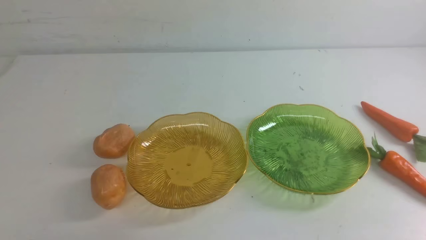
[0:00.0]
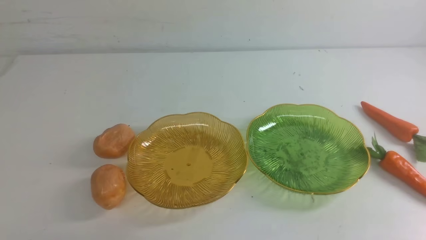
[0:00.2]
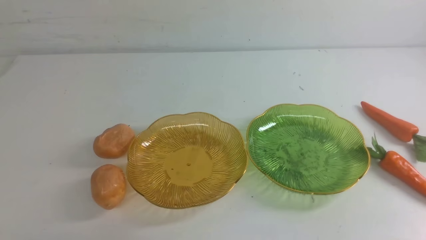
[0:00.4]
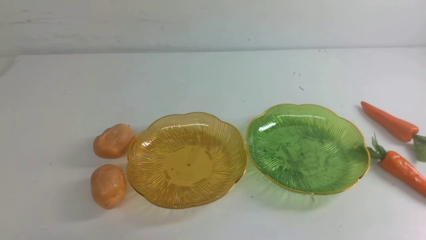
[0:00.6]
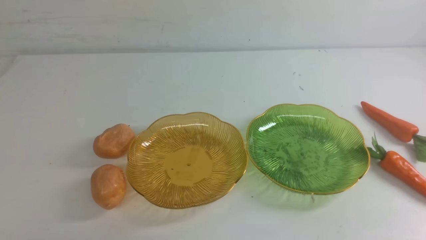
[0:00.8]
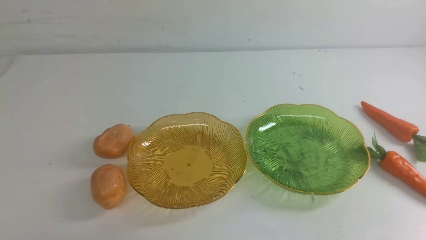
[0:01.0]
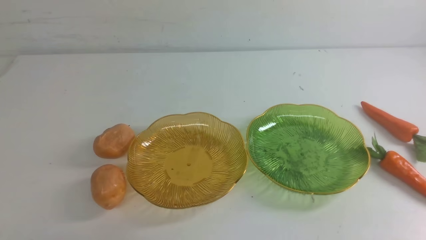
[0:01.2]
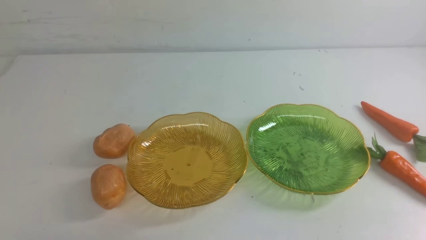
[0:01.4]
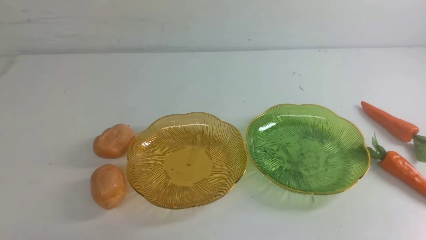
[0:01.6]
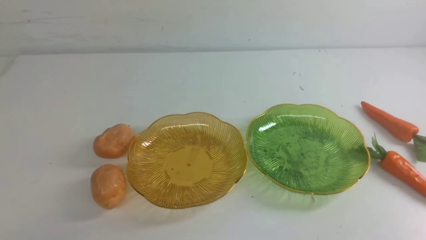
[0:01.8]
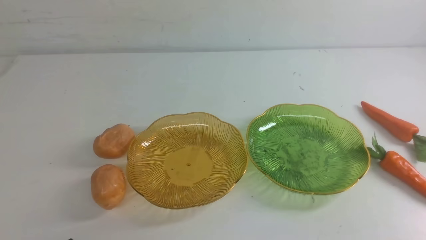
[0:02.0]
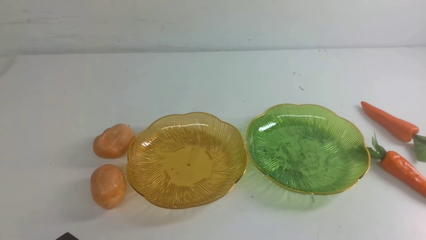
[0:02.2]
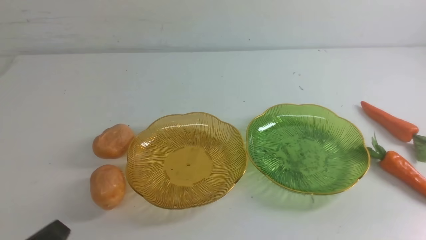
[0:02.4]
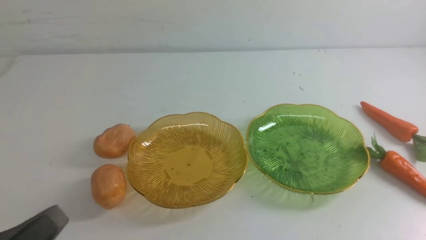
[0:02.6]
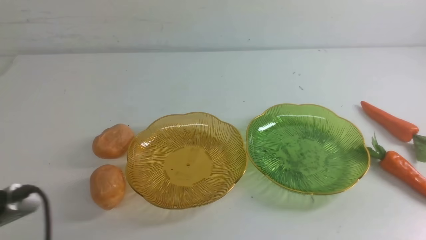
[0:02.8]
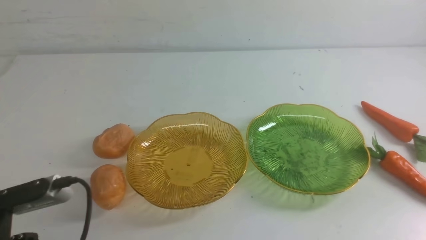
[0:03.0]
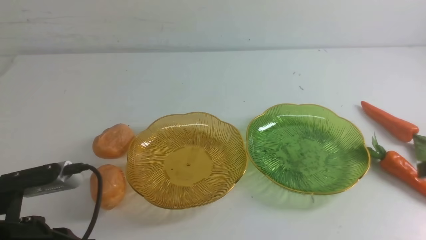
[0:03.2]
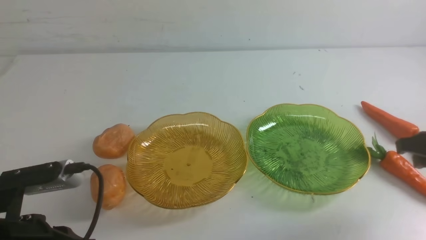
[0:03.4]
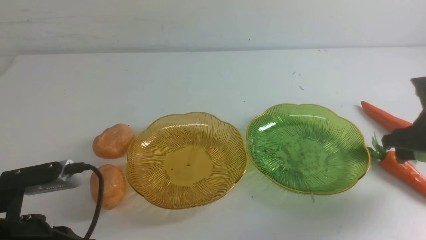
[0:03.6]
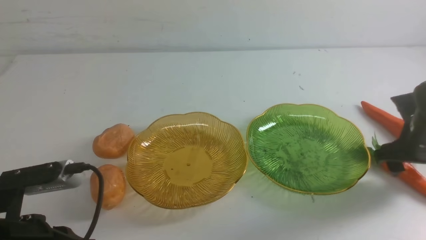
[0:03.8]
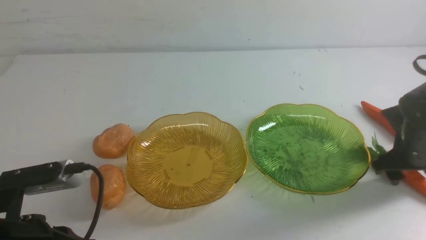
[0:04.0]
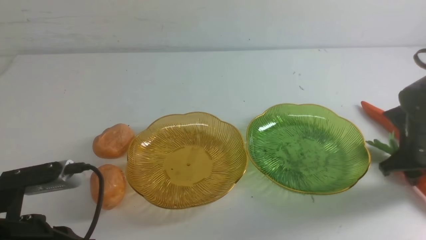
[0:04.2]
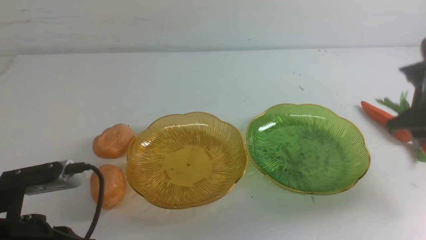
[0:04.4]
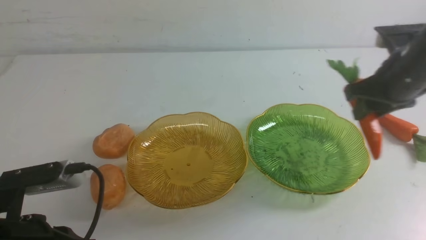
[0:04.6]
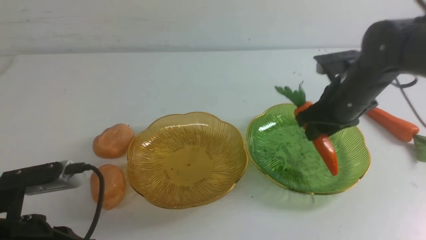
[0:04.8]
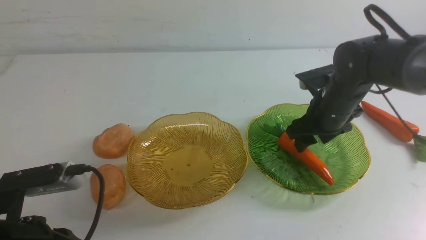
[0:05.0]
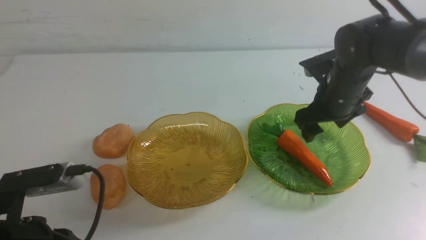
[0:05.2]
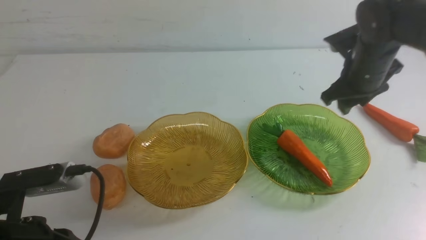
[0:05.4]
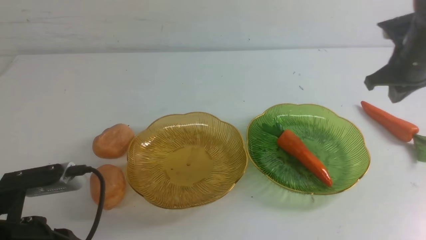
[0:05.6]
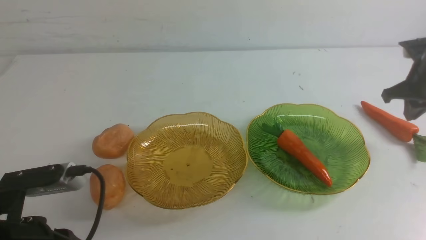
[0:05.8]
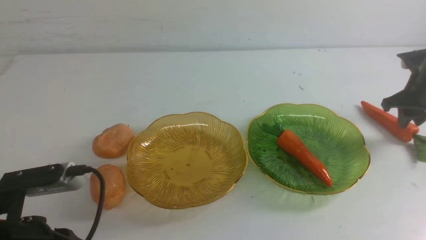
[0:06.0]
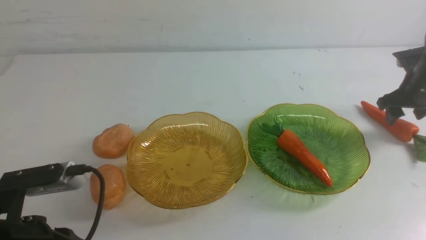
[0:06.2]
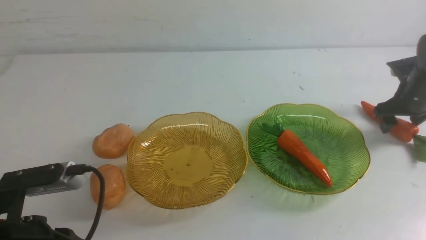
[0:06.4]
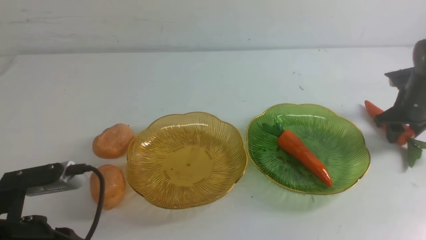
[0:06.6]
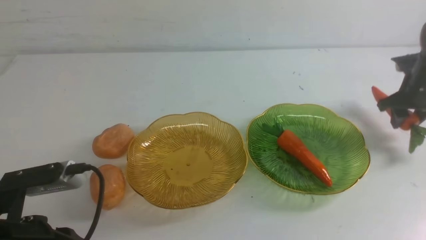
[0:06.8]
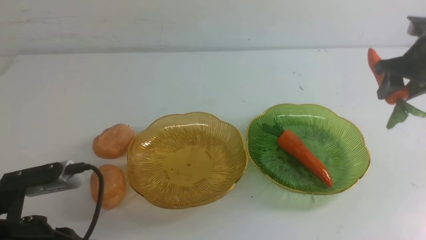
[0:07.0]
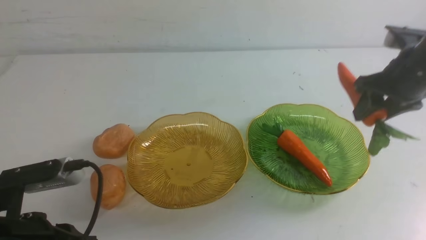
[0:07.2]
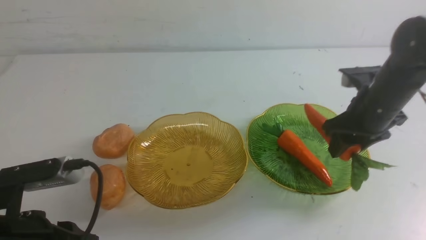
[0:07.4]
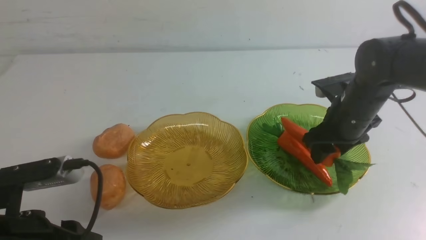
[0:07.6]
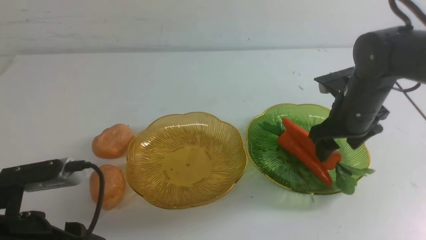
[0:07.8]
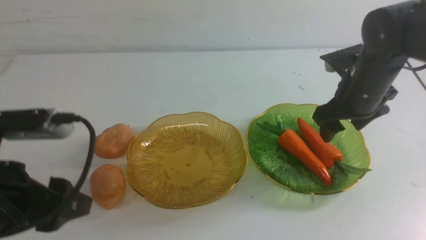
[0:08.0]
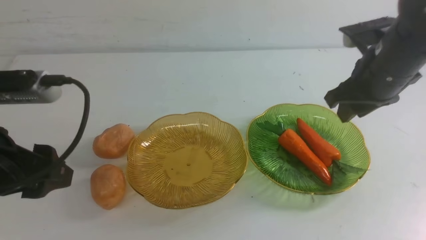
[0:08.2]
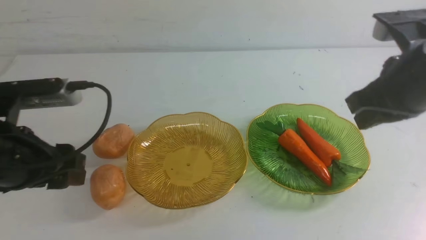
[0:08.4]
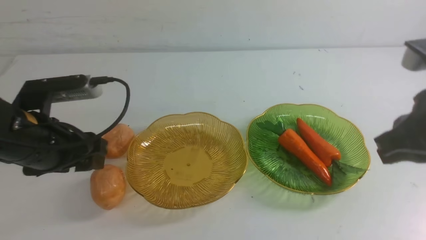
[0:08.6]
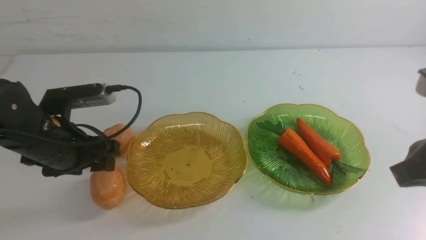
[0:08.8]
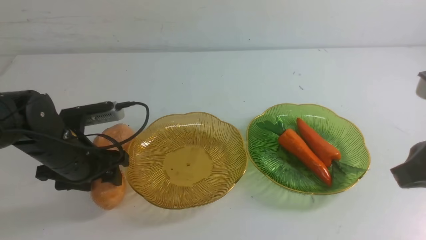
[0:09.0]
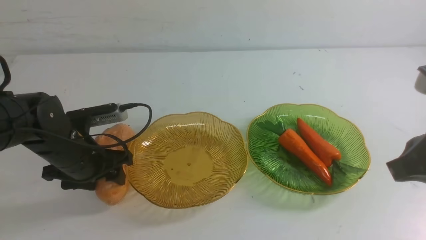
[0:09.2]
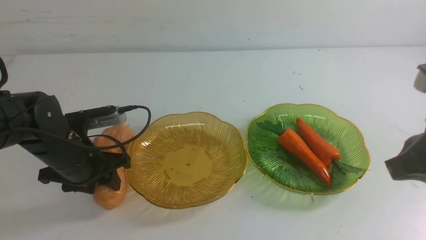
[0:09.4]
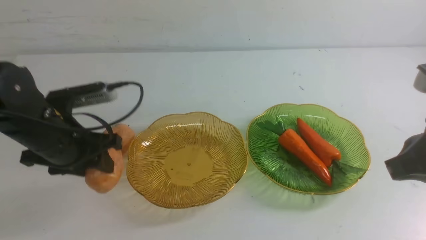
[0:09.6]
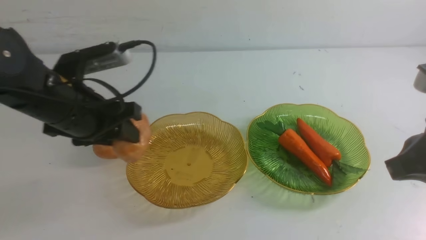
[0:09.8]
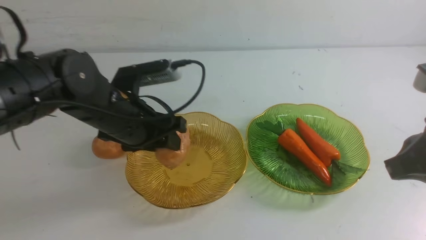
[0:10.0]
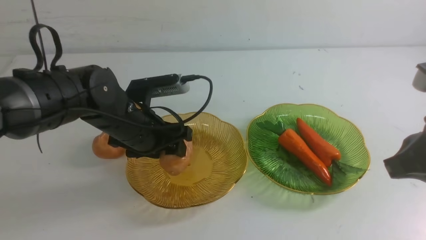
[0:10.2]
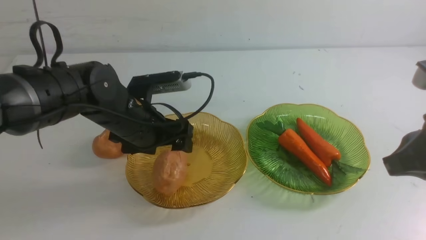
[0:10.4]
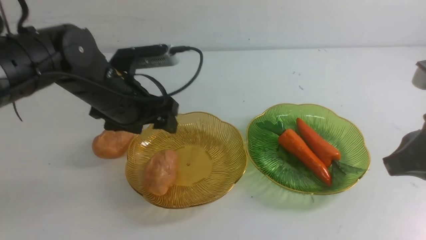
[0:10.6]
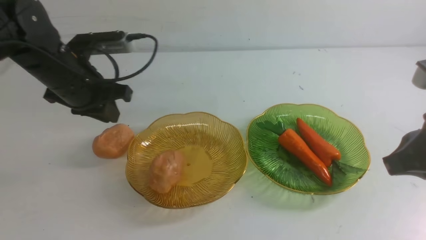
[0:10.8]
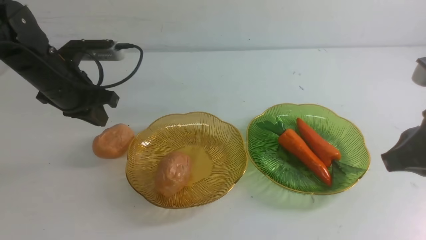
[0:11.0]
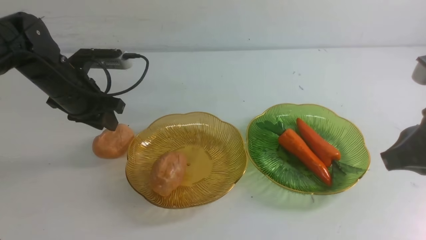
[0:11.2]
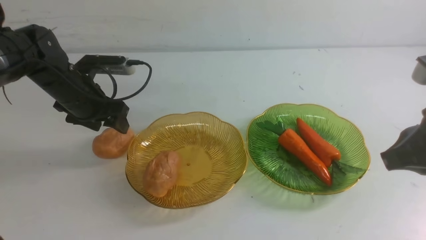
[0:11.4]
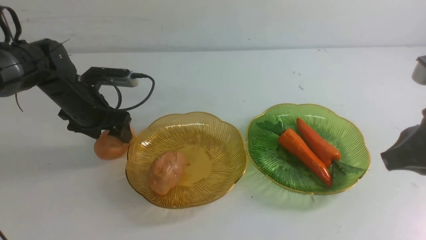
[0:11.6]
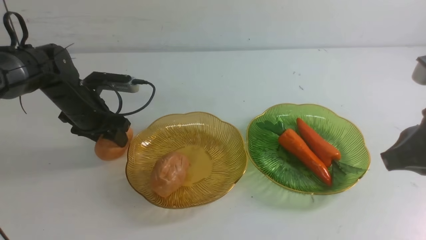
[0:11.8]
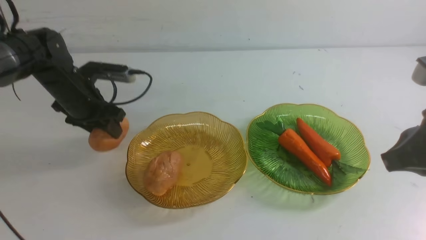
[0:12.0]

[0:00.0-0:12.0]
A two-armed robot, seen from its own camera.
Step, 0.0 to 7.8 s: use the right arm to grab a carrot and put it into the right plate.
Step, 8.0 to 10.2 s: Grab a potato with your left arm and put it on the left plate.
1.6 to 3.0 s: The left gripper shifts some 10 cm upward and forward.
3.0 to 4.4 s: The right gripper moves forward, about 20 cm, and opens its fingers.
4.4 to 6.0 s: The right gripper heads forward and to the right, covering some 10 cm, and closes, then reopens.
6.0 to 7.6 s: The right gripper heads to the left and backward, covering about 20 cm. The left gripper opens its fingers.
7.6 to 9.0 s: The left gripper heads forward and downward, covering some 15 cm, while the right gripper goes about 20 cm backward and upward, and closes.
9.0 to 10.4 s: The left gripper travels upward and forward by roughly 10 cm.
10.4 to 12.0 s: The left gripper travels forward by about 5 cm, and moves roughly 10 cm downward and comes back.

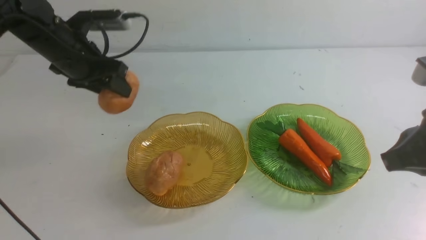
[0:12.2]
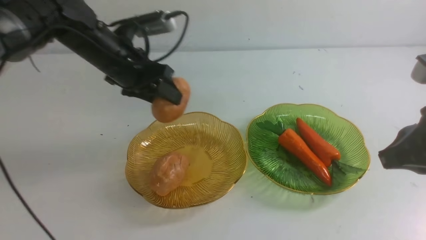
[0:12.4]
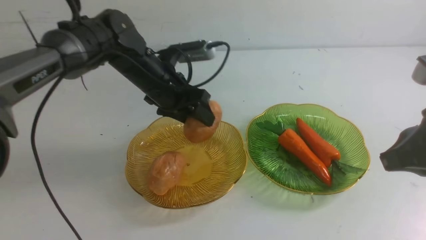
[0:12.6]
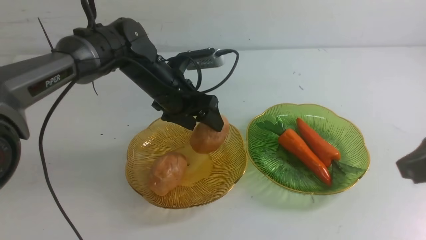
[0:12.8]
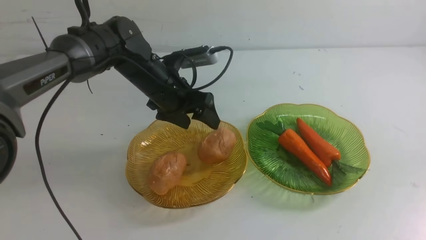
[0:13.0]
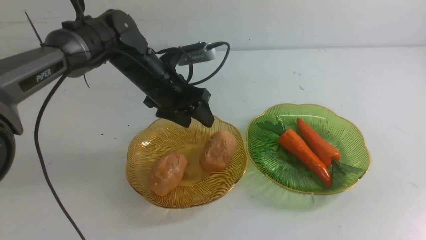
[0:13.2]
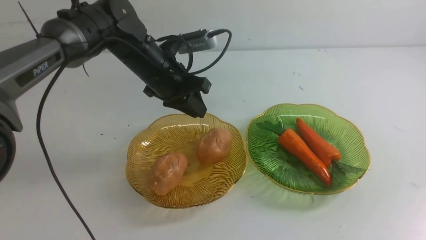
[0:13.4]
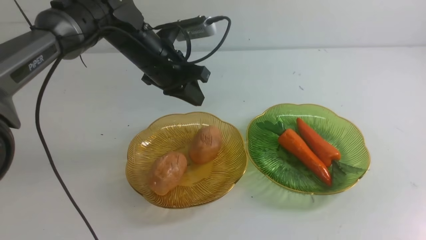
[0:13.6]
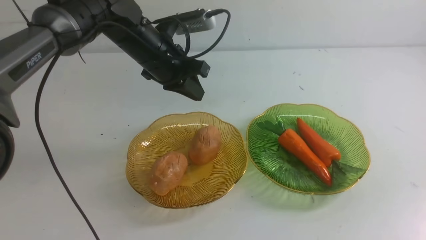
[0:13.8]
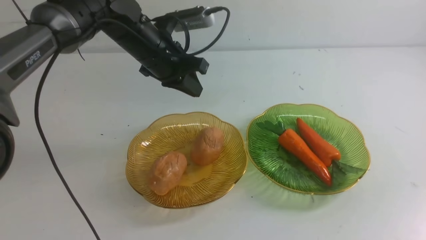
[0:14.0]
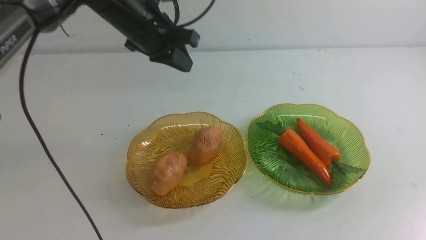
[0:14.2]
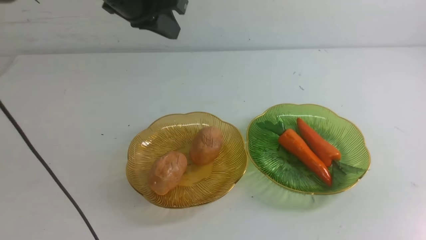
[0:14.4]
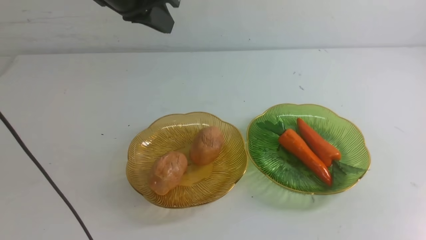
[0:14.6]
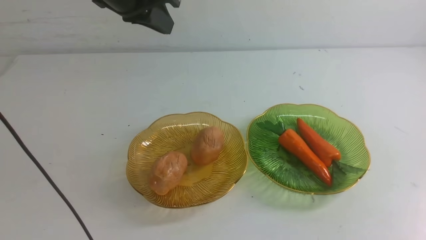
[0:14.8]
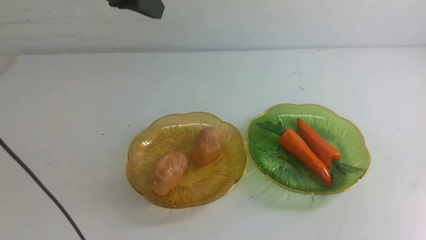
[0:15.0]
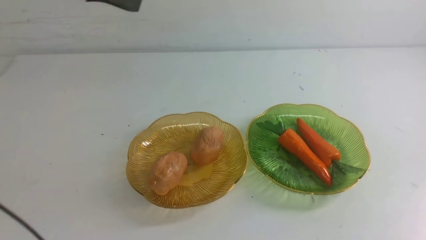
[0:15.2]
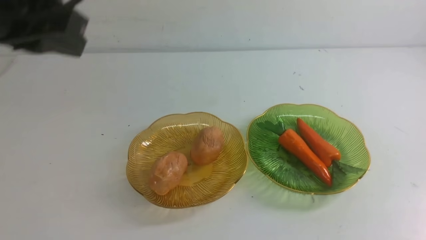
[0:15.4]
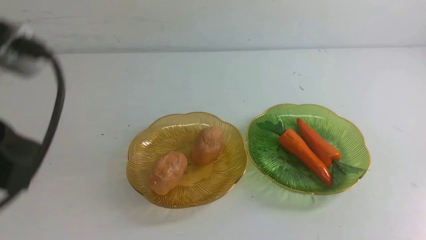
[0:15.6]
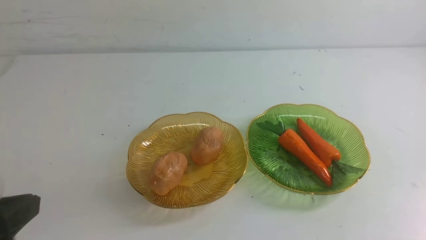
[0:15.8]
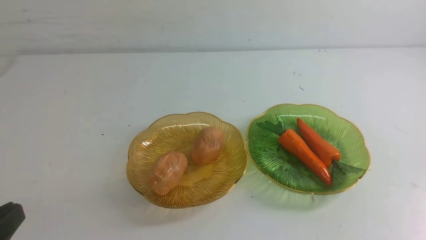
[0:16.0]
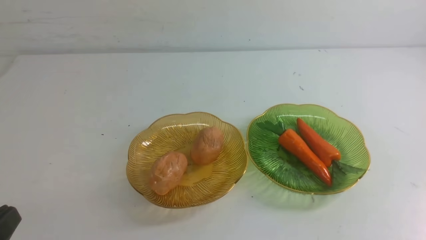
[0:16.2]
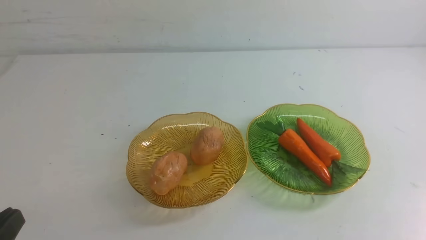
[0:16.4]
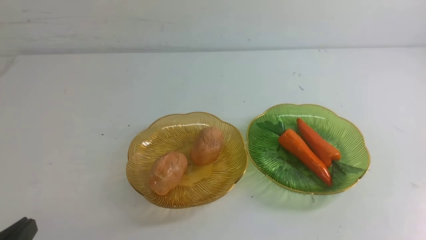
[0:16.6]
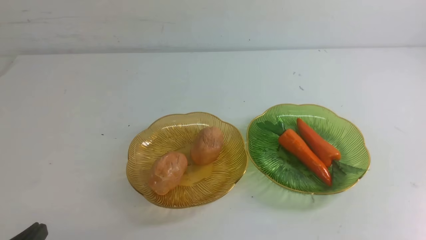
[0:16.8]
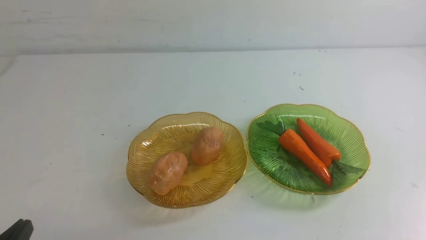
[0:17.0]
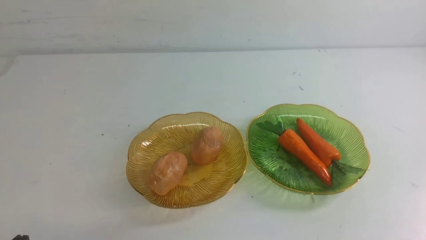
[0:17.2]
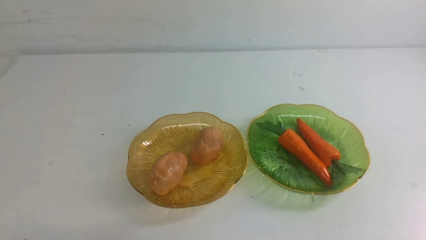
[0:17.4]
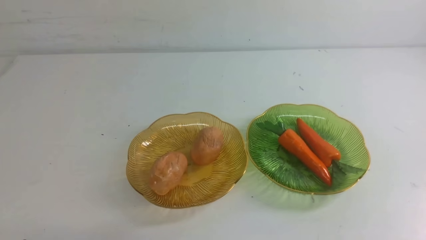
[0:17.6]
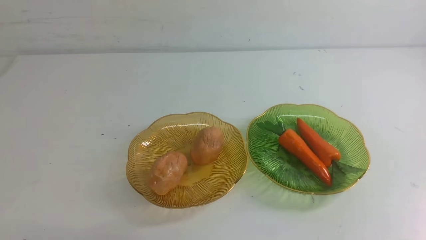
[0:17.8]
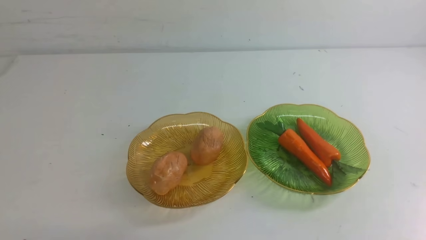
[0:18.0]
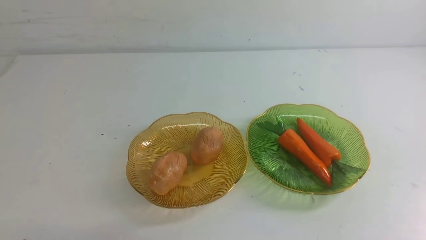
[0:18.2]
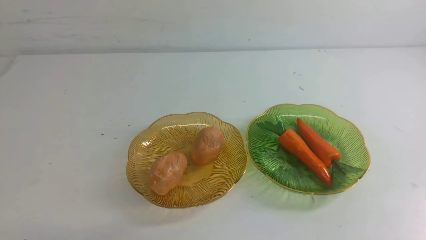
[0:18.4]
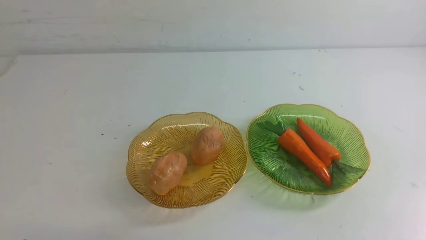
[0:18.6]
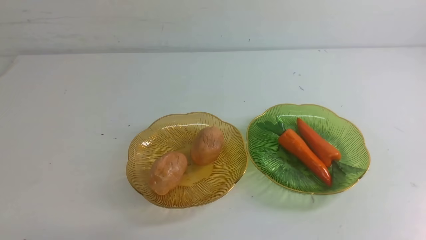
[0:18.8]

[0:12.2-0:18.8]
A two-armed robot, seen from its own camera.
12.2 to 13.8 s: The left gripper heads upward and to the right, covering approximately 10 cm, and closes up; the right gripper travels backward by roughly 15 cm.
13.8 to 15.4 s: The right gripper travels downward by roughly 10 cm. Meanwhile the left gripper goes approximately 30 cm backward.
15.4 to 17.2 s: The left gripper travels downward by about 25 cm.
17.2 to 18.8 s: Both grippers stay put.
